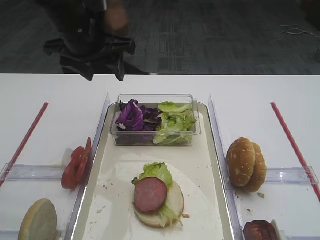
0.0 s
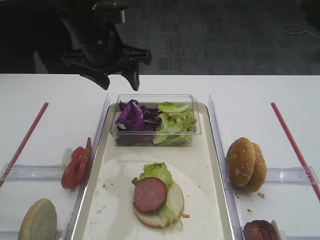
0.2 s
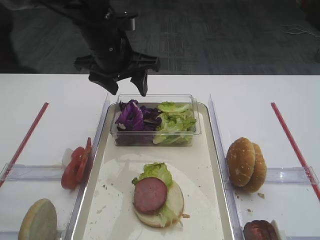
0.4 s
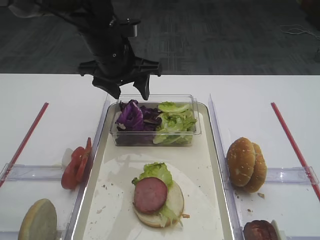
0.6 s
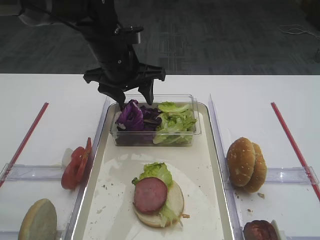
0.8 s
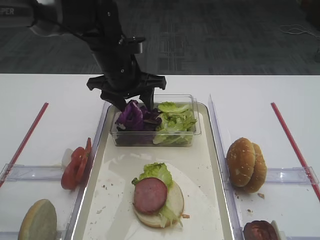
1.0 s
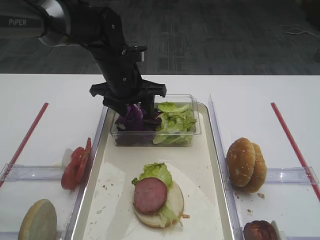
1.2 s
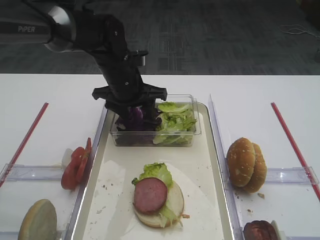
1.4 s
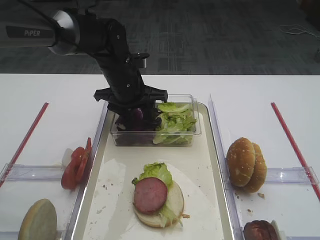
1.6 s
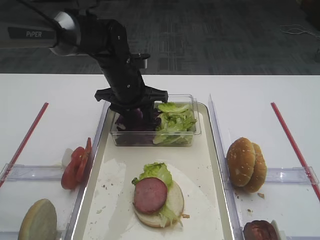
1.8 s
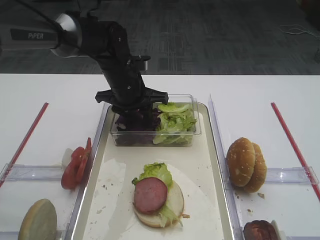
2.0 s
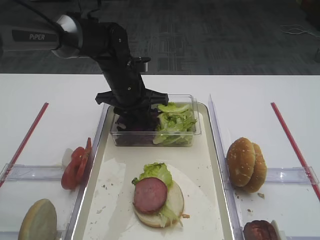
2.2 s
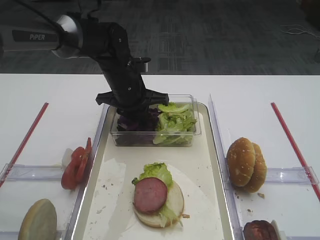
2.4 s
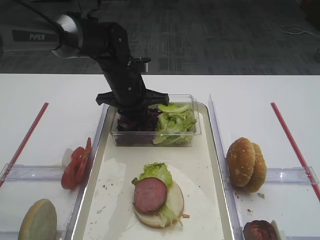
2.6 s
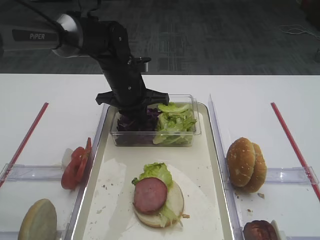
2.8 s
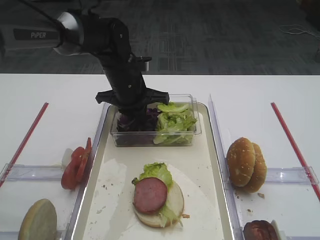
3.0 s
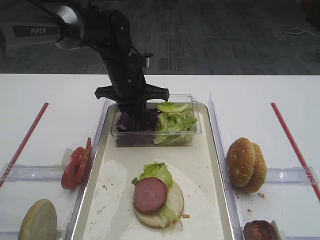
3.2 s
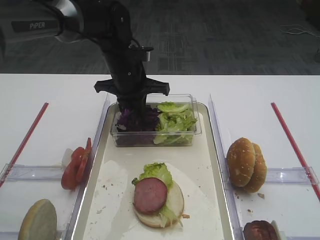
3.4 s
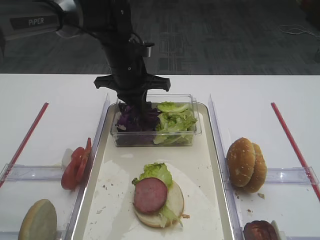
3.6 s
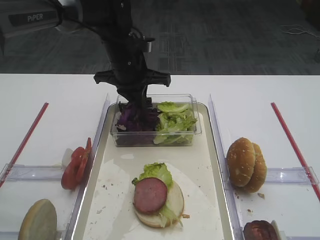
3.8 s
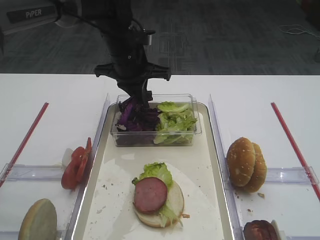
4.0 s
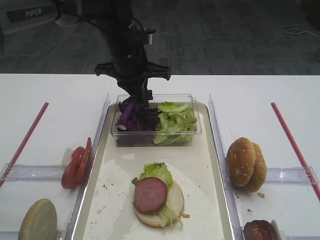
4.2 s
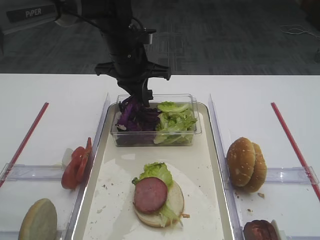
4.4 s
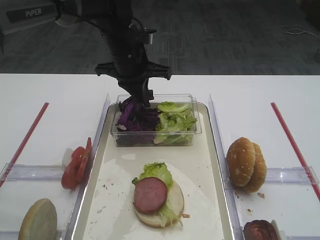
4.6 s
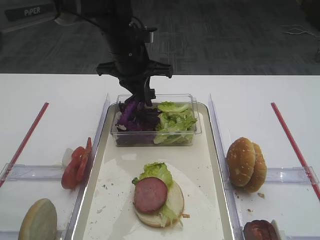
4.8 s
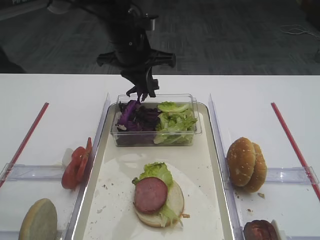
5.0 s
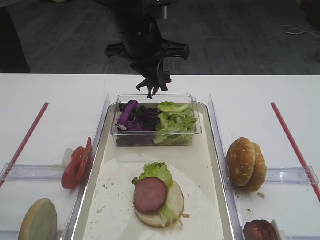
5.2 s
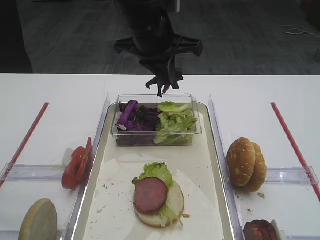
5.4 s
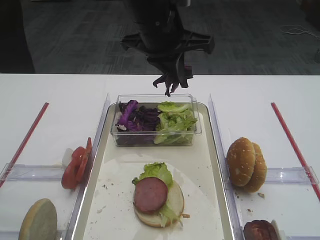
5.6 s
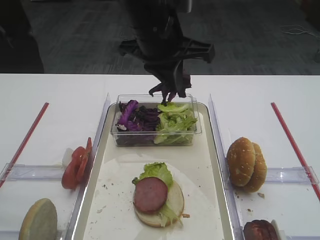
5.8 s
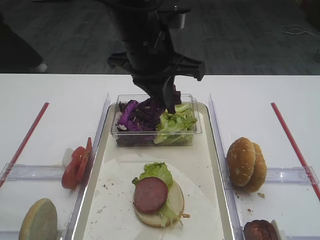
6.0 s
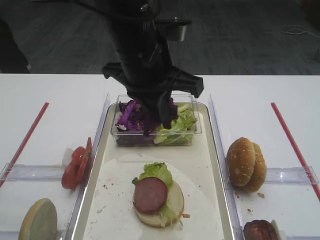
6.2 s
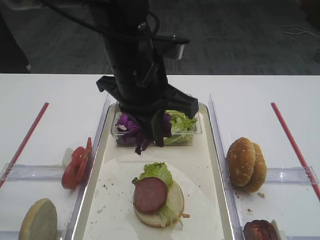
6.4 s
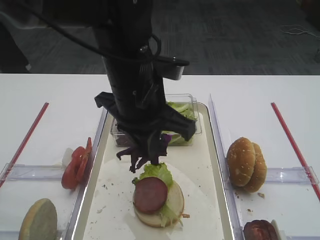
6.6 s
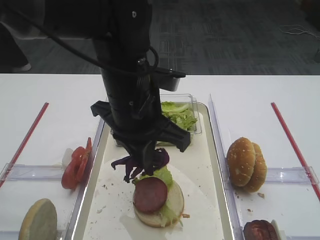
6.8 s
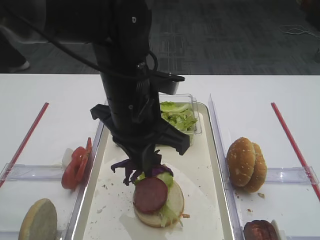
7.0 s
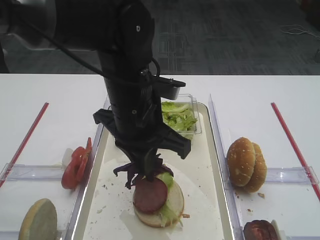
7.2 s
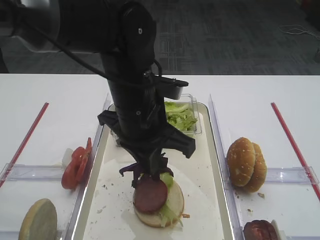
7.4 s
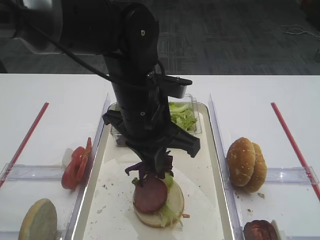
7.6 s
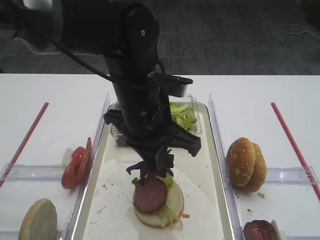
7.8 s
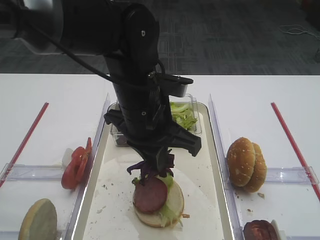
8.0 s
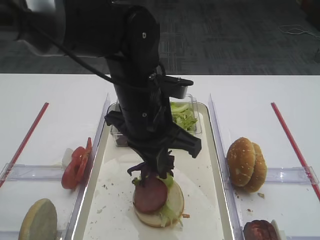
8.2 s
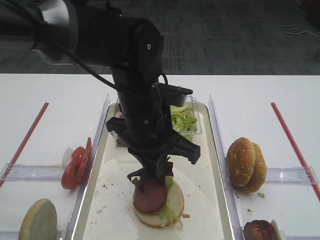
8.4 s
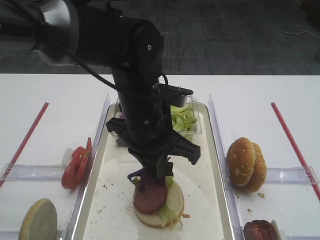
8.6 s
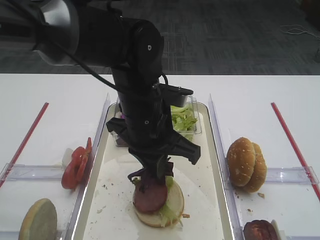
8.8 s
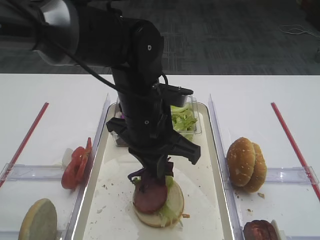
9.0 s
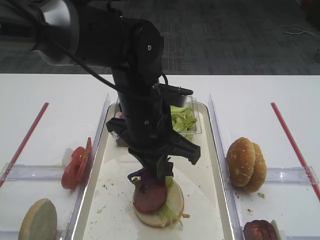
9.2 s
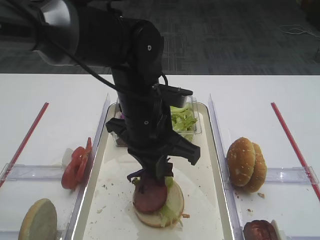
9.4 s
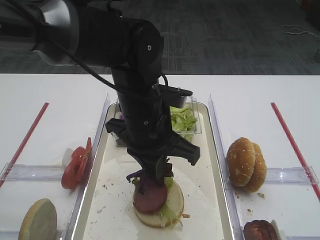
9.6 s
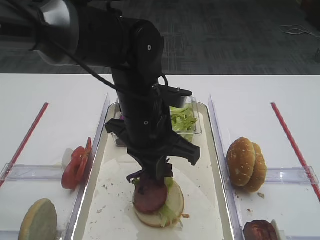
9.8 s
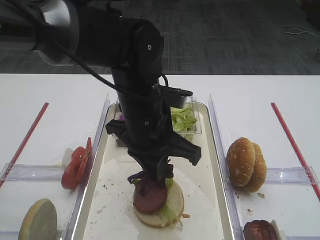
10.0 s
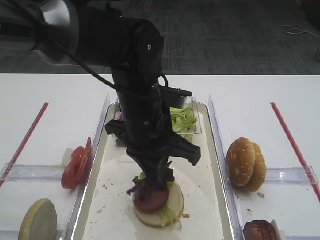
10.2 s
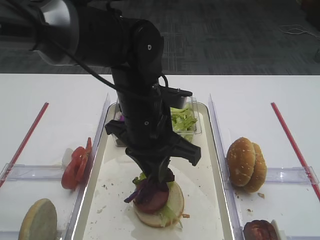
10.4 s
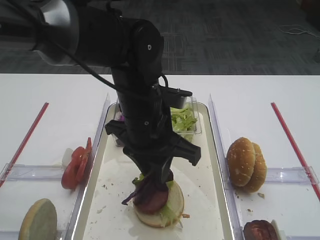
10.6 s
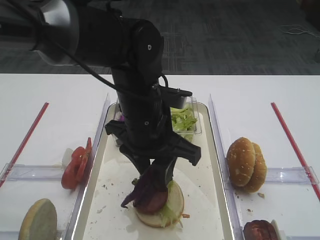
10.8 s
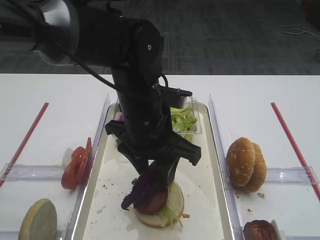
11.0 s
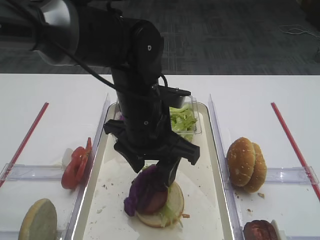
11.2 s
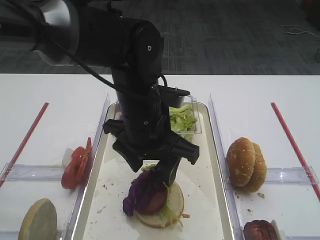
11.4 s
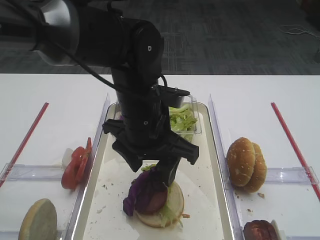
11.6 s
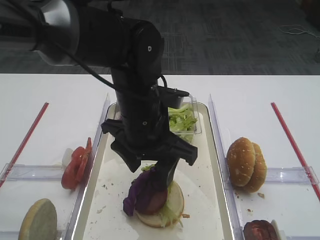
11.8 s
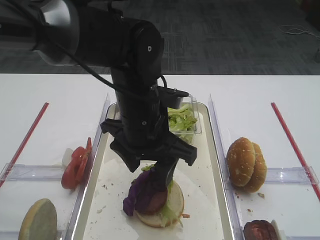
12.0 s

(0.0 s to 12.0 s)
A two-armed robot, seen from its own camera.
Step, 0.0 s - 5.4 s: Pick up the purple cabbage with the left gripper.
0.0 s - 1.6 s: The left gripper goes roughly 15 cm downward and to the right.
1.6 s - 3.0 s: The left gripper closes.
3.0 s - 4.4 s: The left gripper heads upward, covering some 5 cm.
4.4 s - 6.0 s: The left gripper travels backward and upward by some 15 cm.
6.0 s - 7.6 s: The left gripper heads downward and backward, covering about 10 cm.
7.6 s - 9.0 s: There are only small adjustments of the grippers.
9.0 s - 10.4 s: Both grippers stay put.
10.4 s - 12.0 s: The left gripper opens.

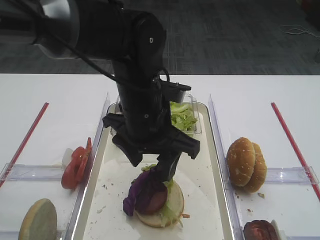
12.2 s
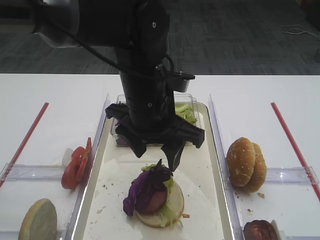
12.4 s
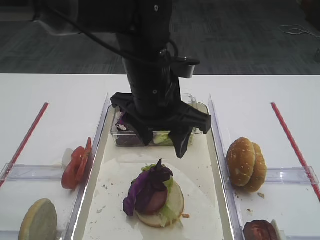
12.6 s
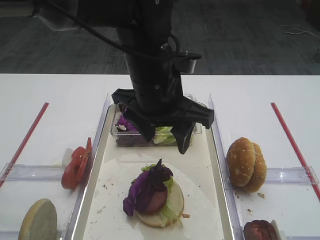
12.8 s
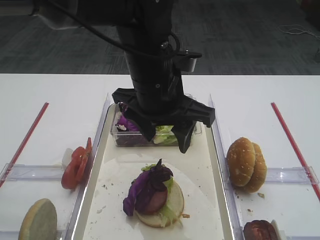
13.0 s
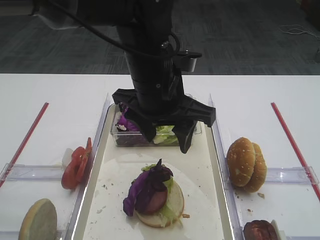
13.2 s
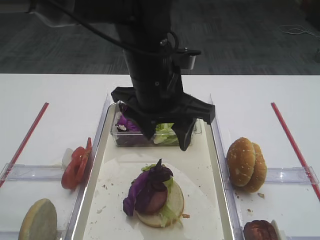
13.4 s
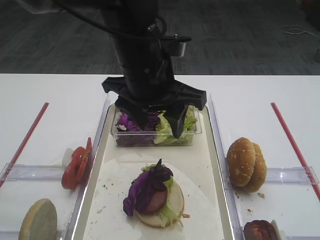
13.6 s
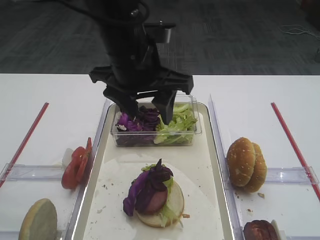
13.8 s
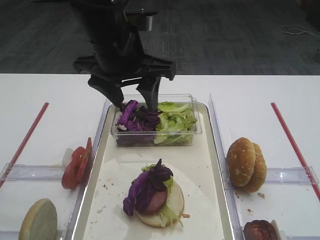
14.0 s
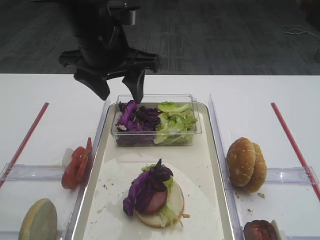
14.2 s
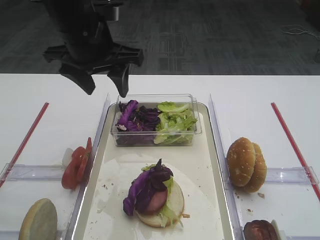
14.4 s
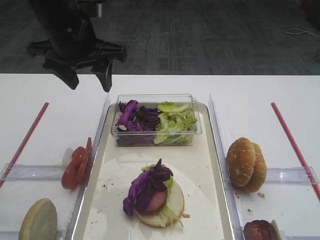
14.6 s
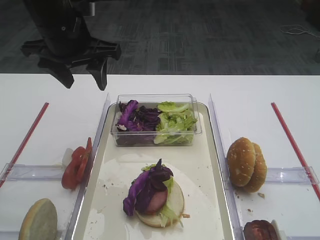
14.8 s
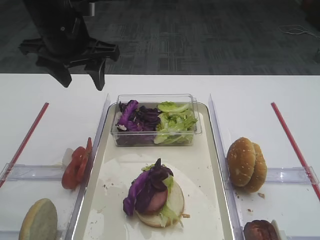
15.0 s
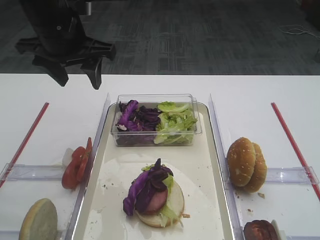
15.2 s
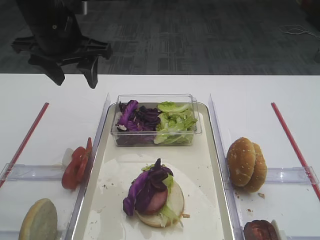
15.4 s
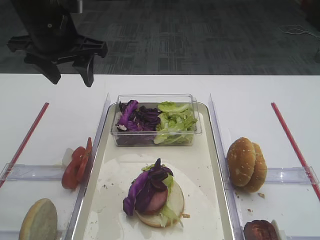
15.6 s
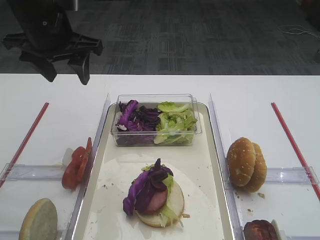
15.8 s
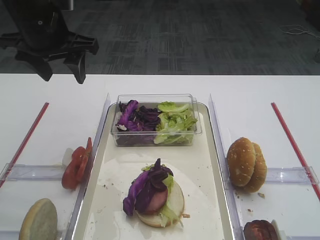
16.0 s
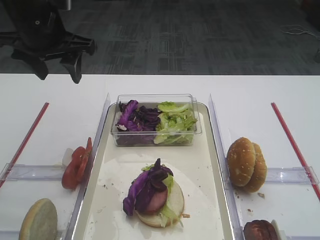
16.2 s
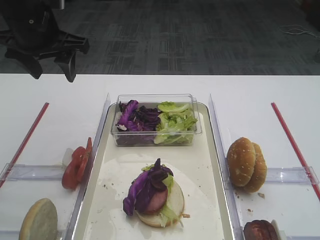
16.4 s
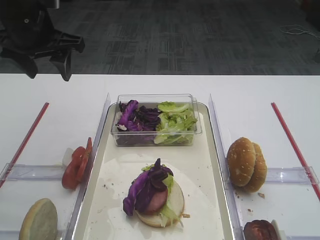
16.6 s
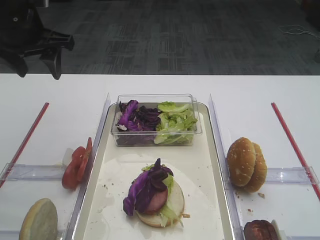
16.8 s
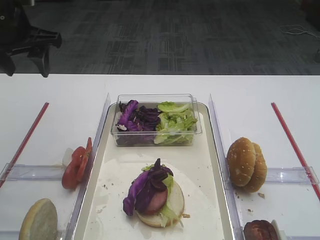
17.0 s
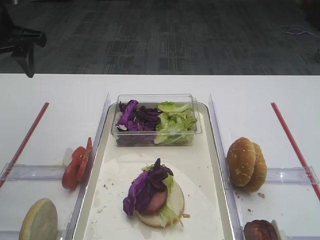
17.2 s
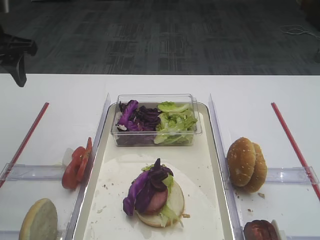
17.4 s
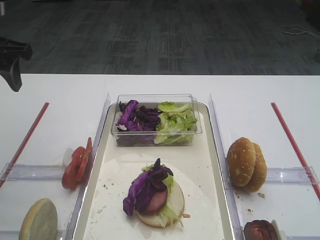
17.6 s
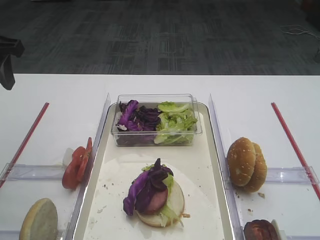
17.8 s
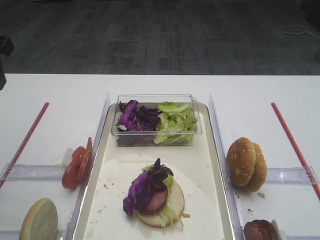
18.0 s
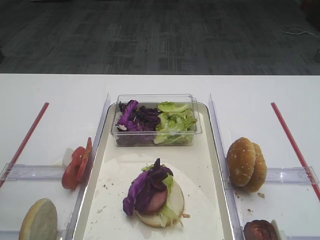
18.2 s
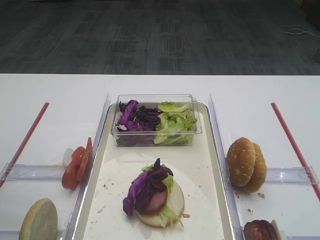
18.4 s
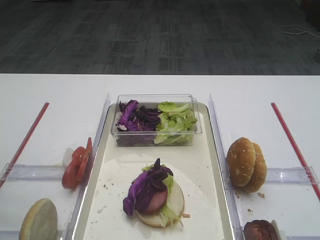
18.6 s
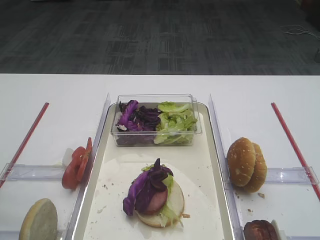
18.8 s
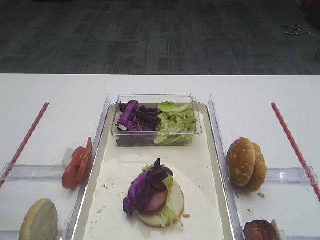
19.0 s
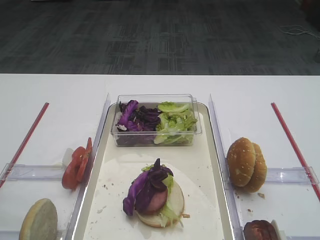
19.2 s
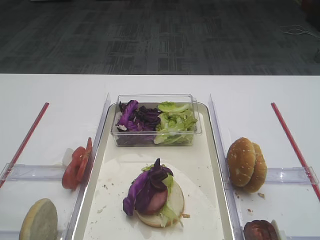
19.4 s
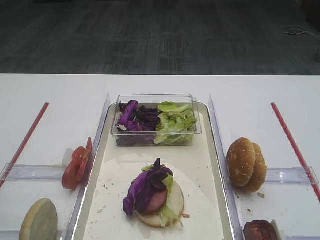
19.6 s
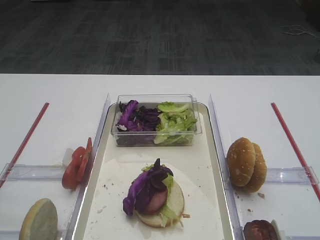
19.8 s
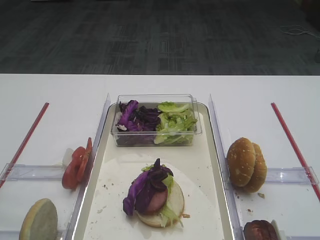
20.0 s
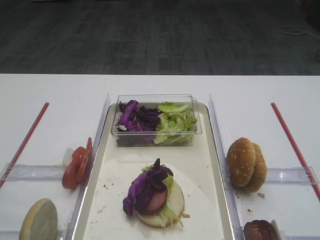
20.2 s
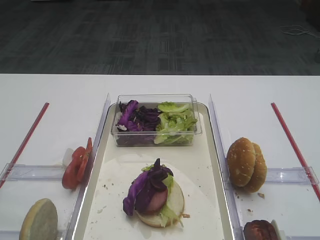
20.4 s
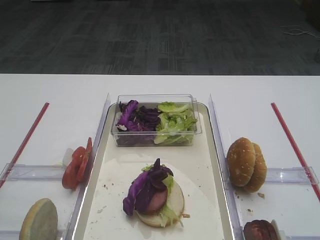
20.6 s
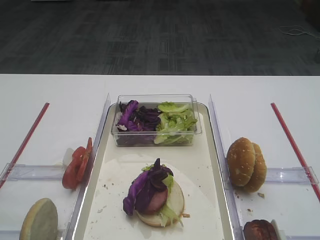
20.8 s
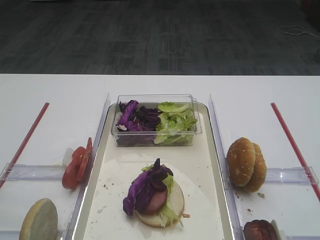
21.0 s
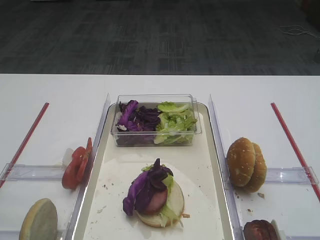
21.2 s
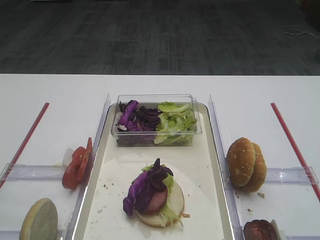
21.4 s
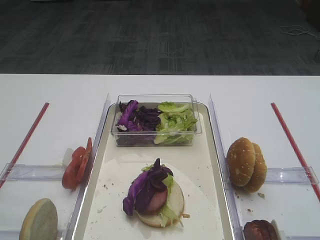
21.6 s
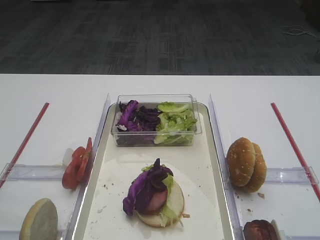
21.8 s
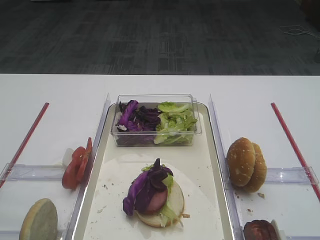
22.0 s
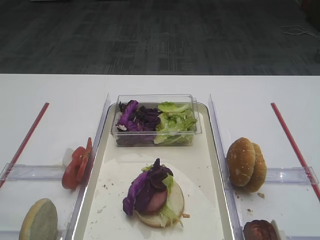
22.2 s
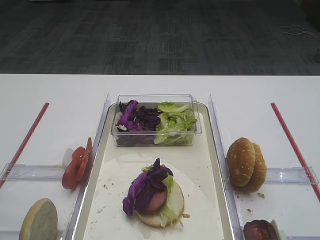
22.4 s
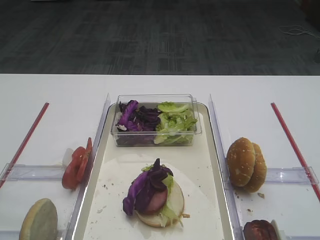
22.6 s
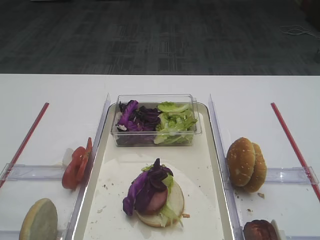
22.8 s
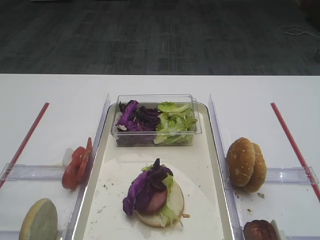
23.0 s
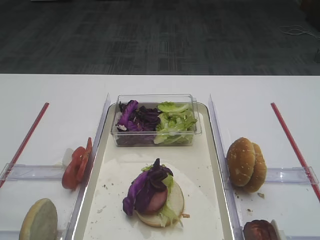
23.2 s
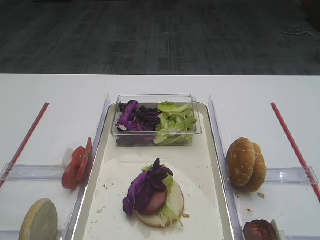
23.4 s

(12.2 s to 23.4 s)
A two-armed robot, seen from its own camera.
12.2 s - 13.8 s: The left gripper is displaced upward by about 5 cm.
13.8 s - 15.4 s: The left gripper shifts approximately 15 cm to the left and forward.
15.4 s - 17.0 s: The left gripper travels to the left by roughly 10 cm.
17.0 s - 18.6 s: The left gripper goes about 15 cm backward.
21.8 s - 23.4 s: Neither gripper changes place.
